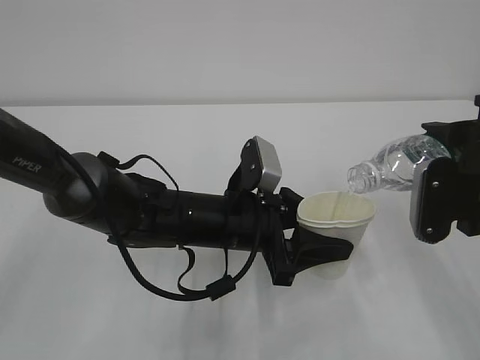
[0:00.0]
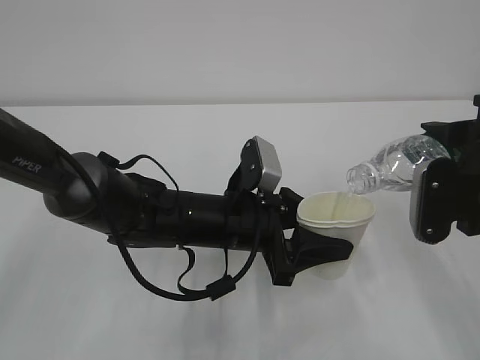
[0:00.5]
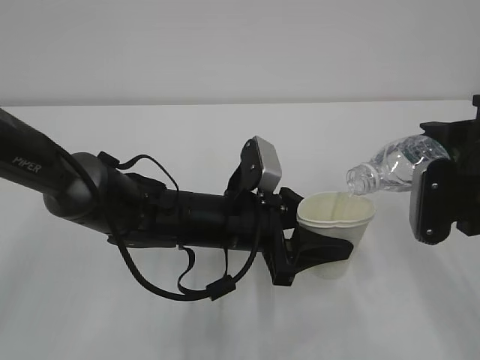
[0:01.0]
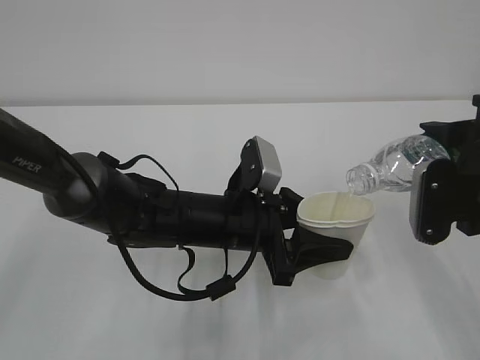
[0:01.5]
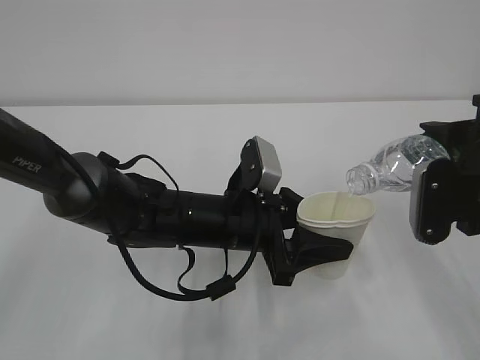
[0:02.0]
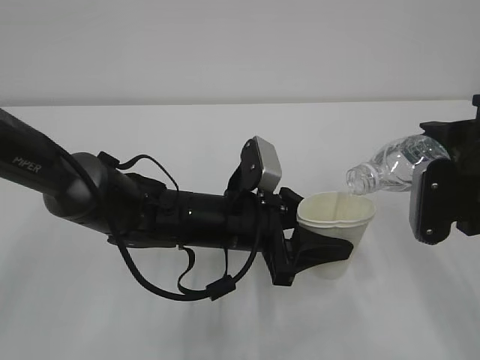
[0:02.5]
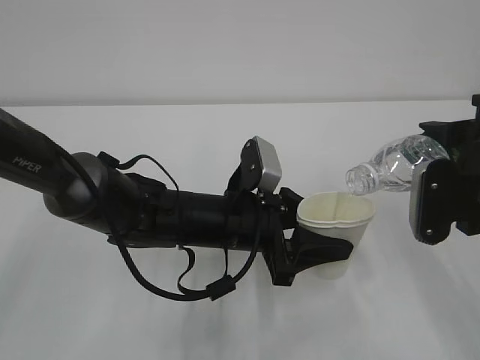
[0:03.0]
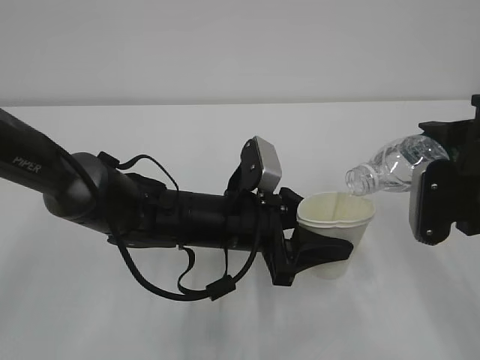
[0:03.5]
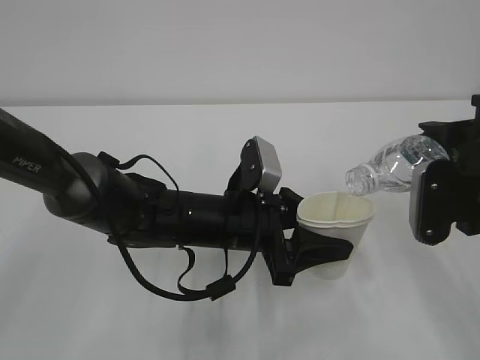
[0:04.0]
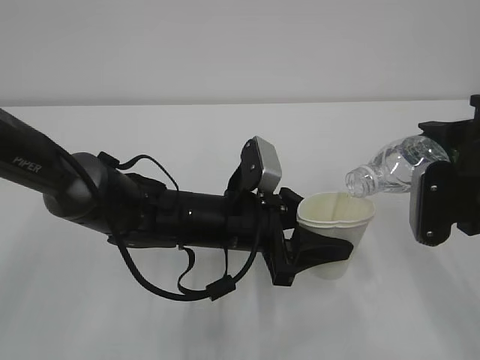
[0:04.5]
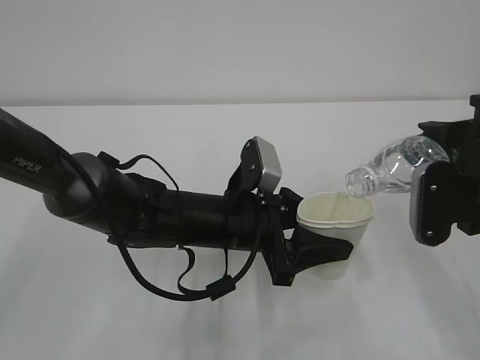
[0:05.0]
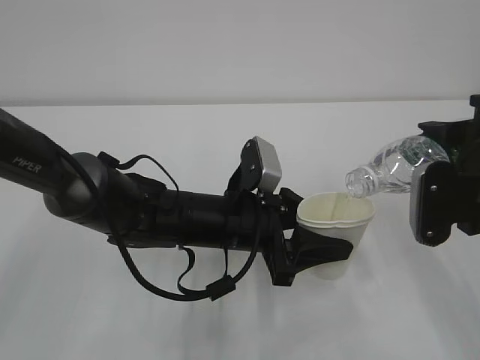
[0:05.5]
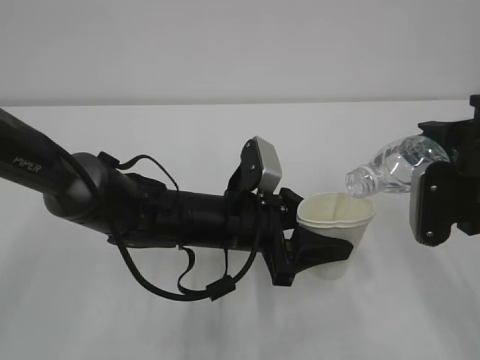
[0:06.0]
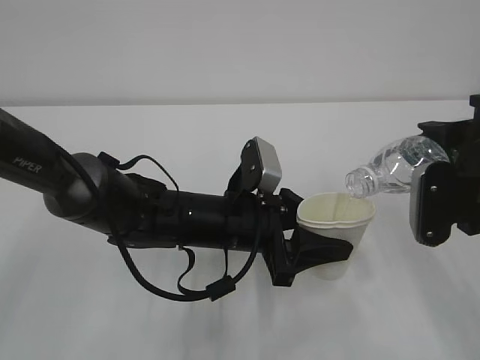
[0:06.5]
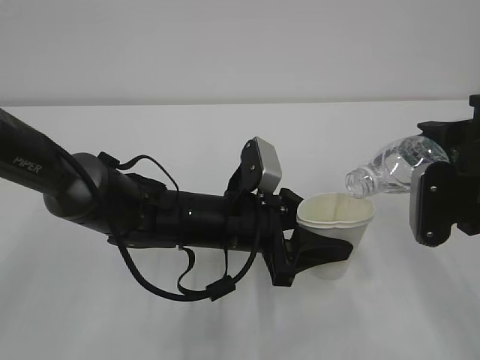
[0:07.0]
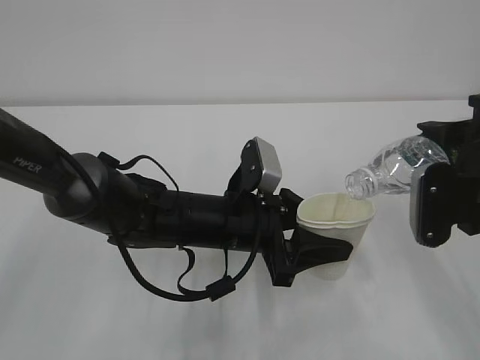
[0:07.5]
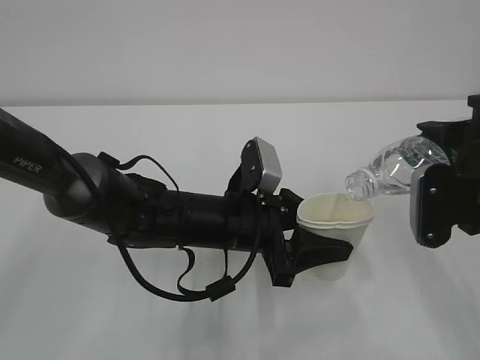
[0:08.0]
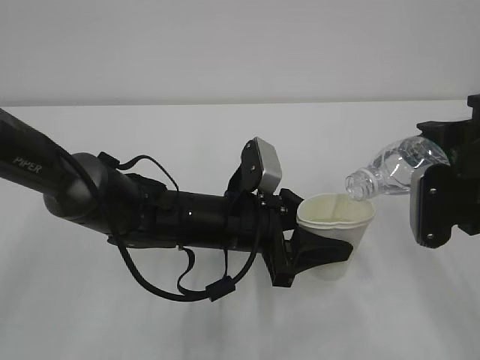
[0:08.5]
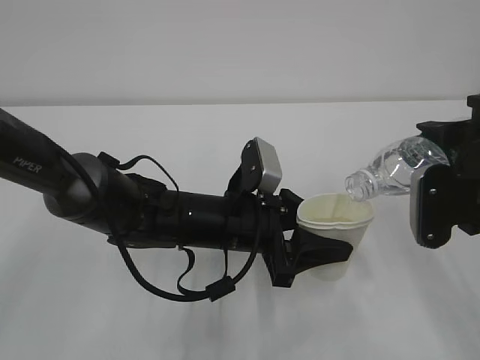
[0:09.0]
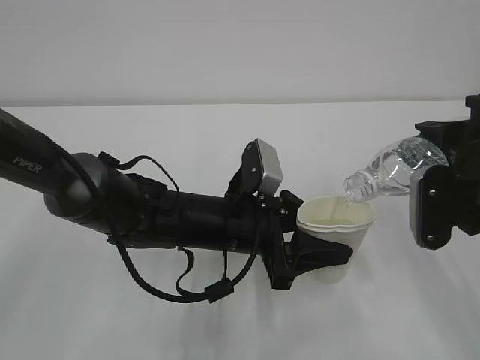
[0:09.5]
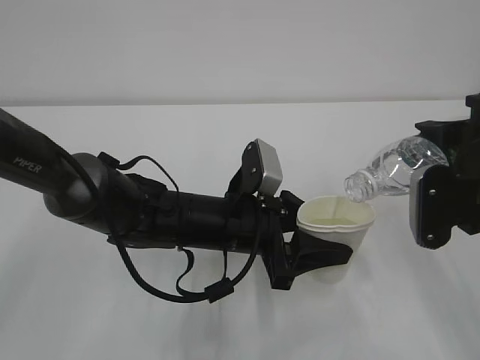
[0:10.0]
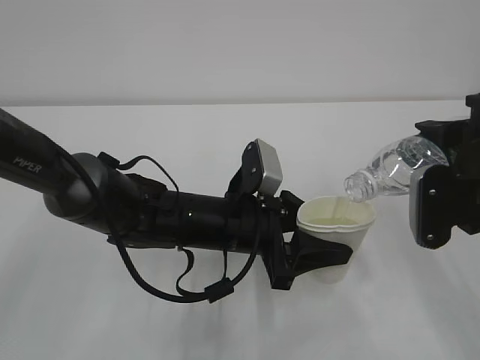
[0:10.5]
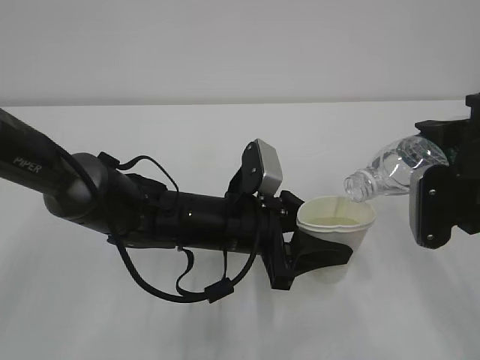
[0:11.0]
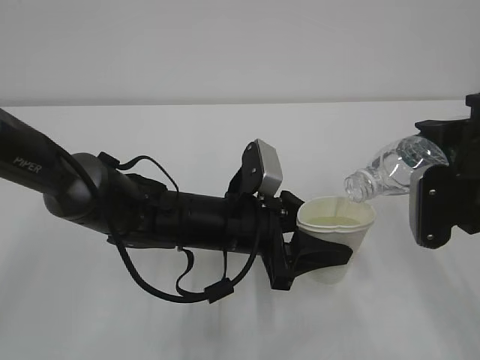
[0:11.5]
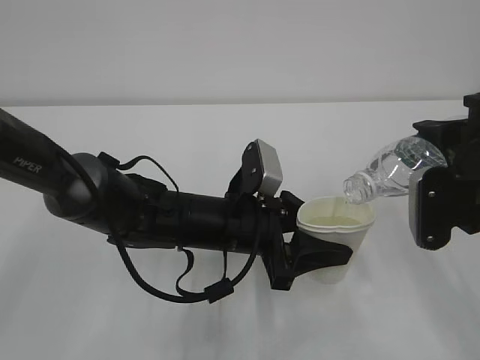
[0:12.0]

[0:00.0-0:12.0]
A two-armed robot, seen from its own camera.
0:00.0 to 0:08.0: Neither gripper changes place.
0:08.0 to 0:12.0: Neither gripper changes place.

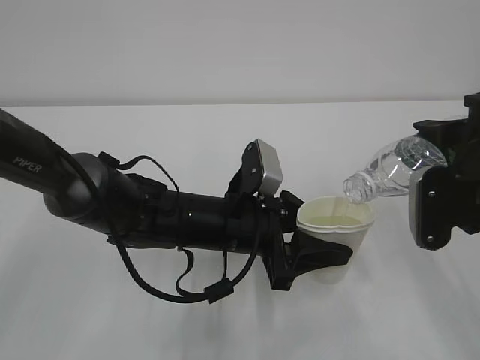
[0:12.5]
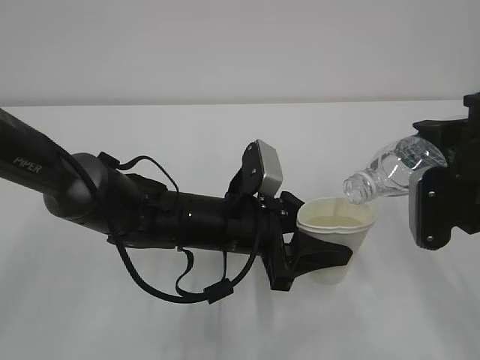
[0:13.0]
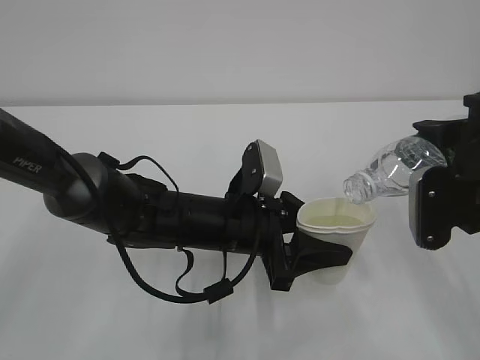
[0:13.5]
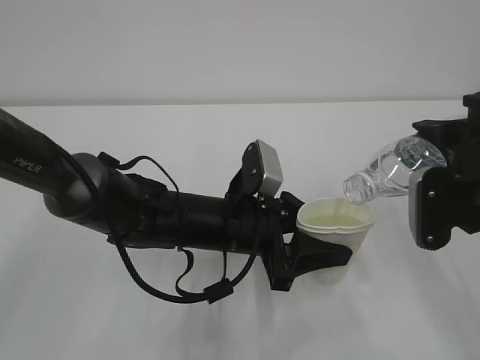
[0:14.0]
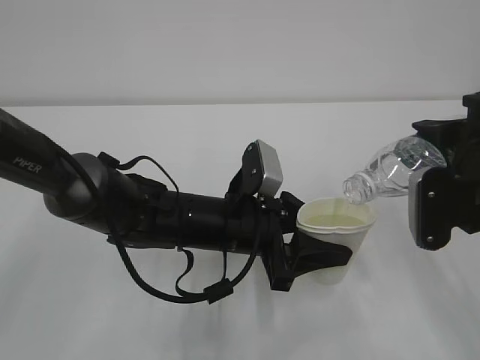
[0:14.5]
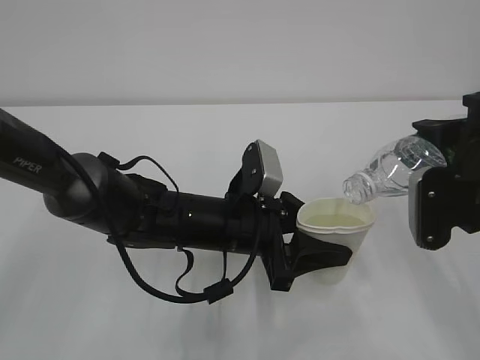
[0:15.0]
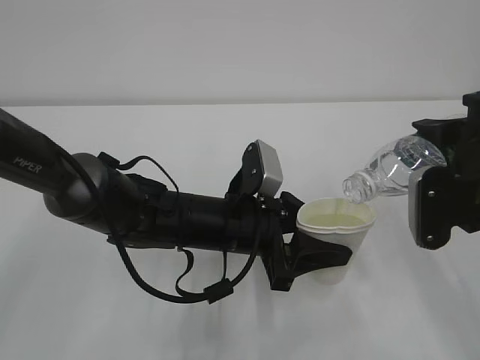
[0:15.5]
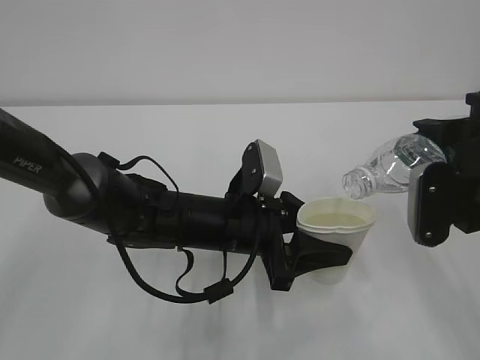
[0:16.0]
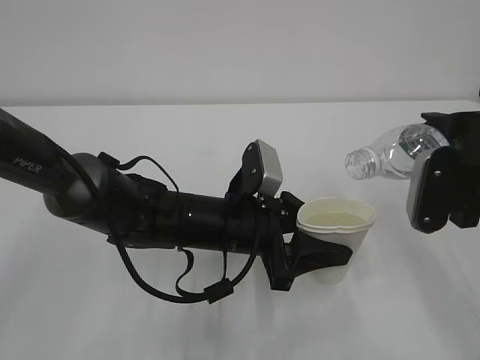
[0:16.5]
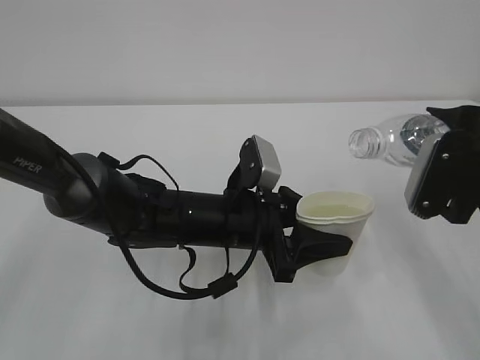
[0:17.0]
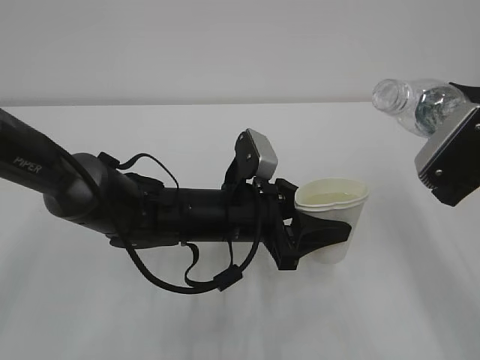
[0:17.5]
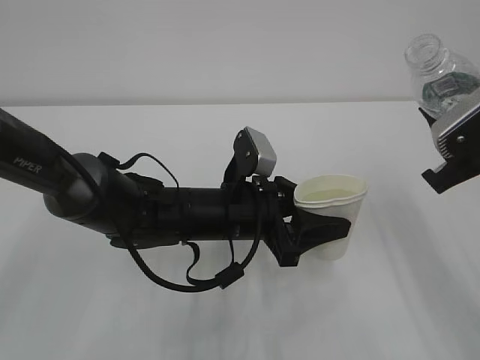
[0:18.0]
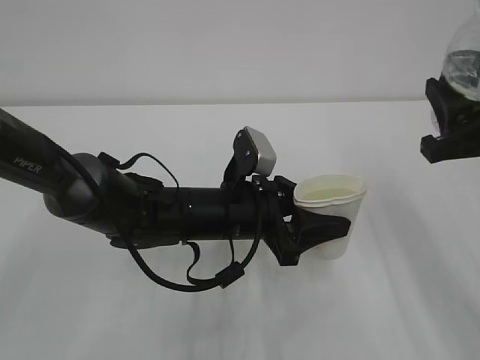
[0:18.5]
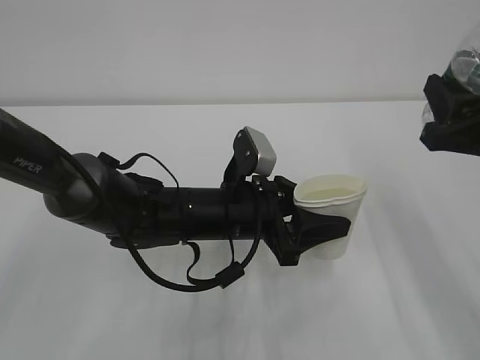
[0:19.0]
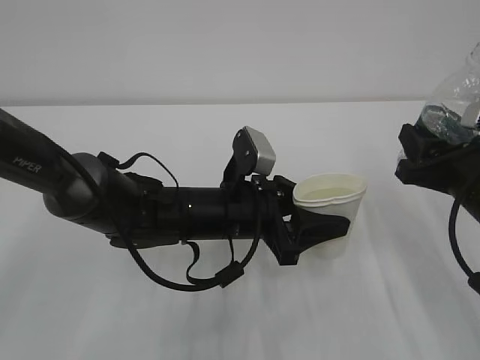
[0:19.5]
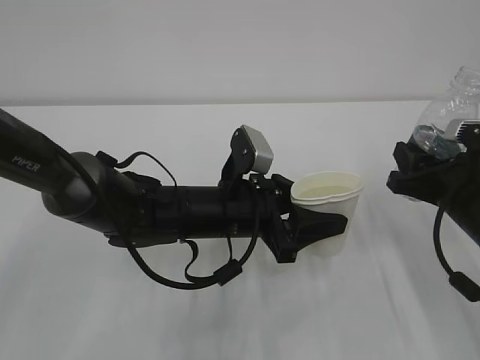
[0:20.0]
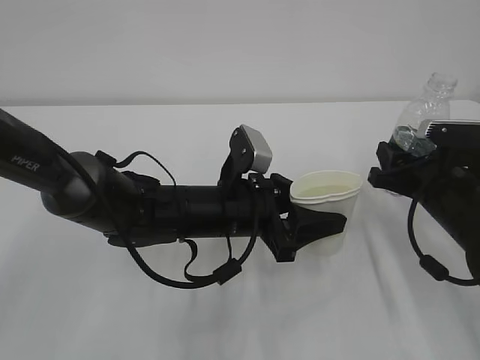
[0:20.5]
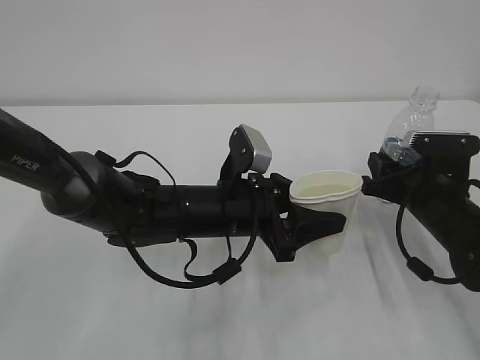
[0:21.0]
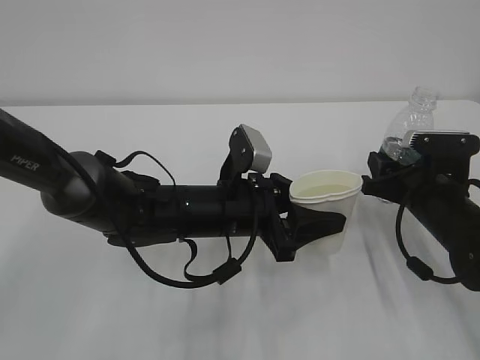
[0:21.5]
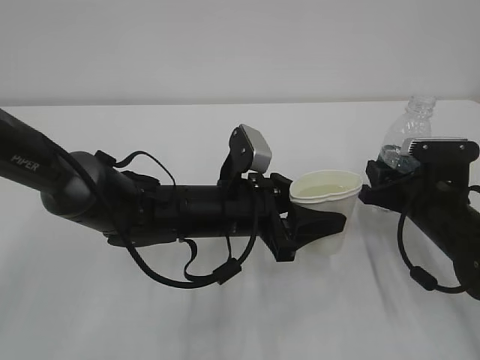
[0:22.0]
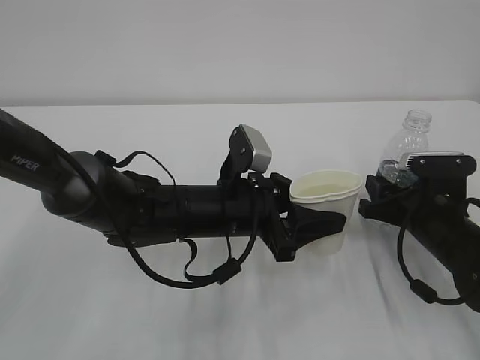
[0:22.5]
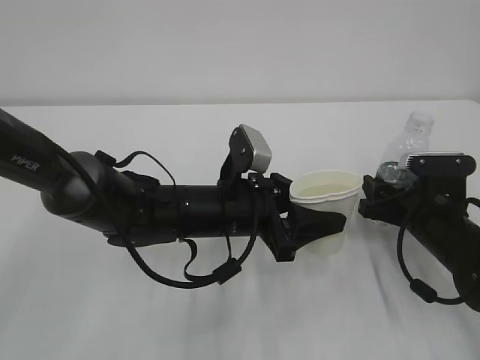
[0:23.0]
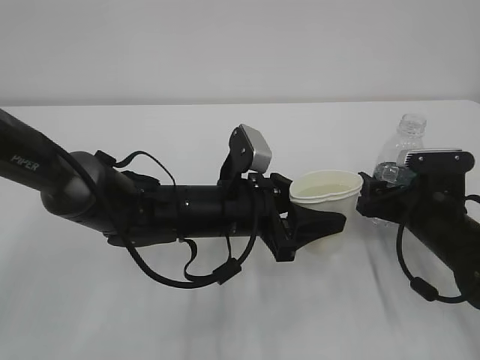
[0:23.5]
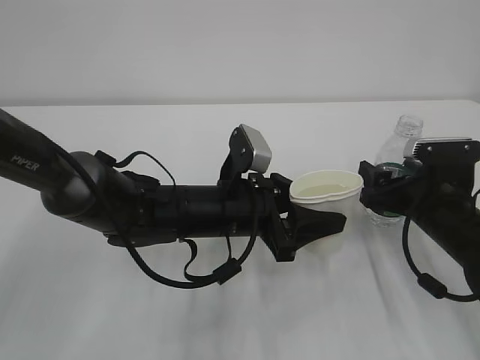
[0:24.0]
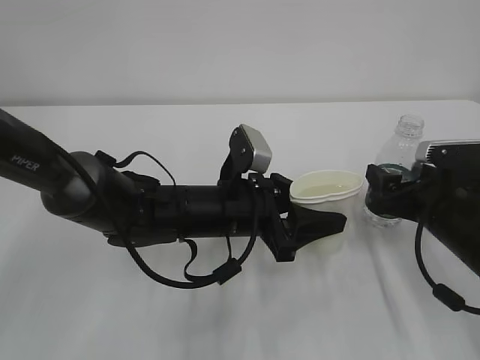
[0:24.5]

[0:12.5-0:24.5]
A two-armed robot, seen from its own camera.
0:12.5 to 0:14.5: Both grippers stay about where they are.
0:14.5 to 0:16.5: There are only small adjustments of the grippers.
0:18.5 to 0:20.5: The right gripper moves downward and forward, roughly 15 cm.
0:20.5 to 0:22.5: The grippers stay close to where they were, moving slightly.
0:22.5 to 0:24.5: The right gripper opens its fingers.

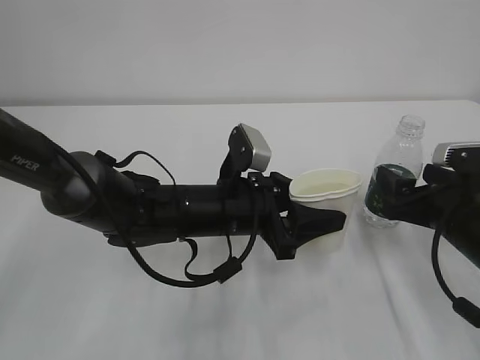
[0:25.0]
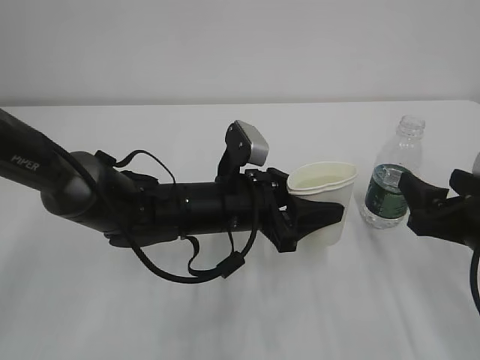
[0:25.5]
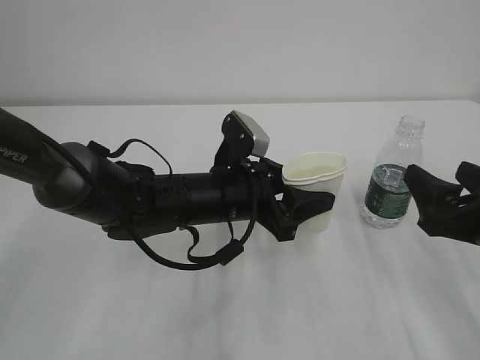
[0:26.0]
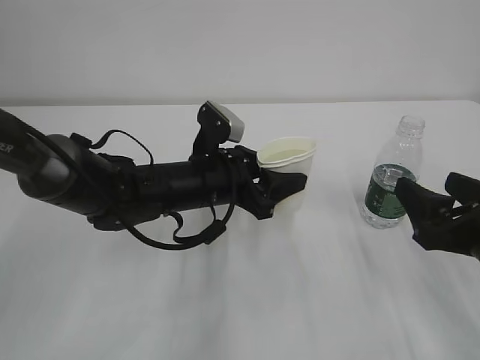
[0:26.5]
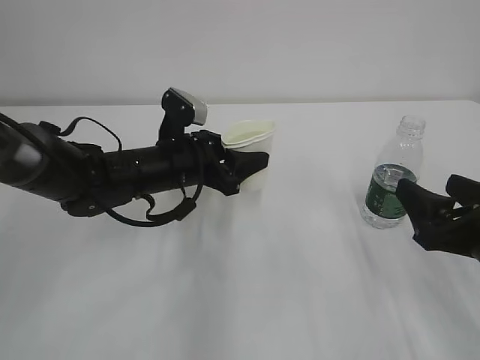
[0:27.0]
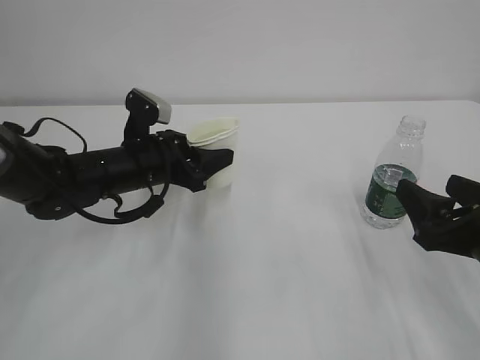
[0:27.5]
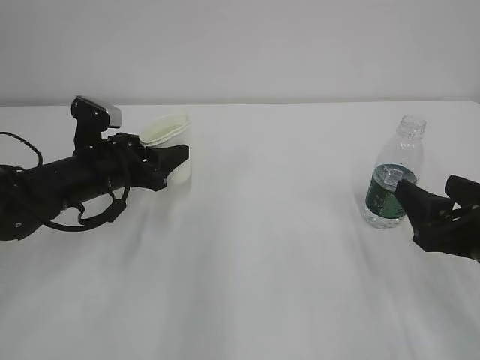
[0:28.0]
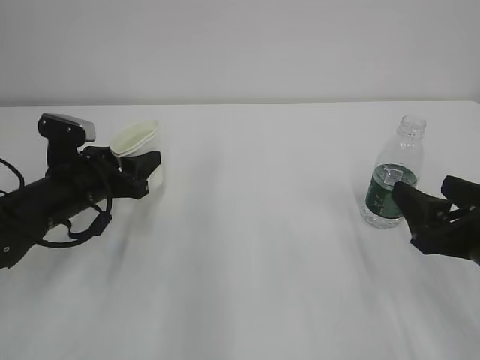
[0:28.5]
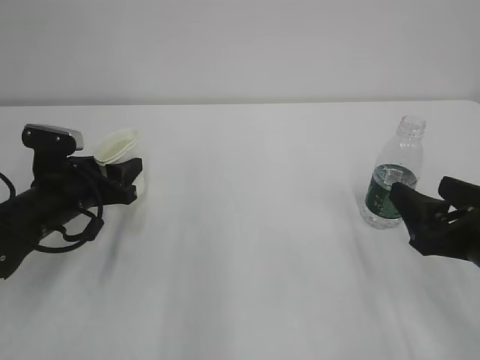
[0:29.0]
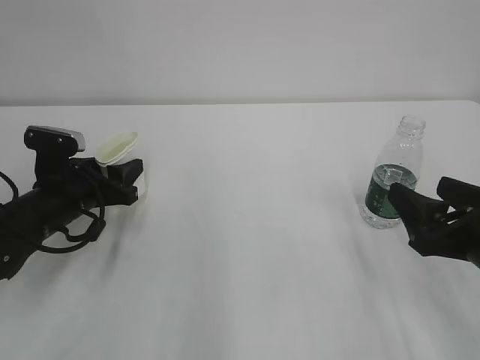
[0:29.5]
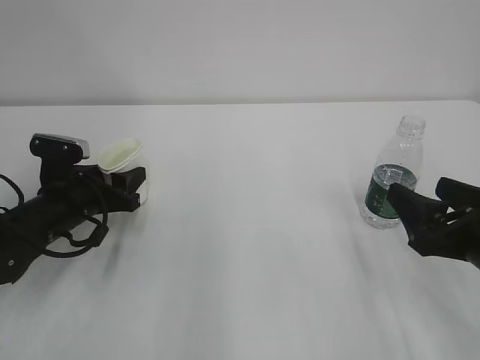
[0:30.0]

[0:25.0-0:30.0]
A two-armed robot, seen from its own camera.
0:25.0 to 0:27.5: The left gripper goes roughly 15 cm to the left and forward. Meanwhile the right gripper moves backward, roughly 5 cm.
0:27.5 to 0:30.0: The left gripper moves to the left, approximately 10 cm.
